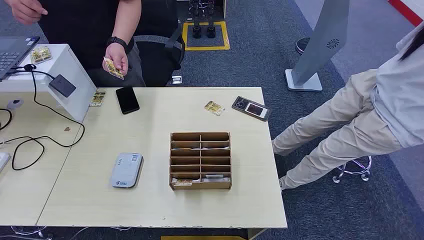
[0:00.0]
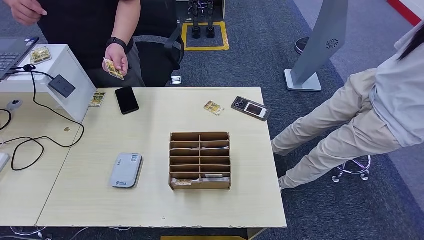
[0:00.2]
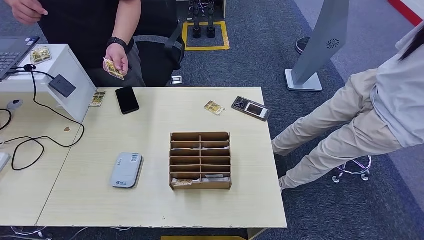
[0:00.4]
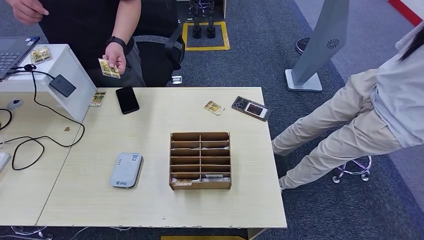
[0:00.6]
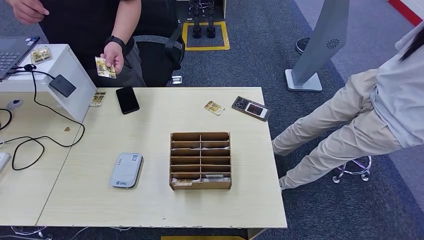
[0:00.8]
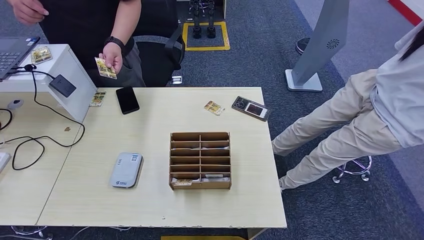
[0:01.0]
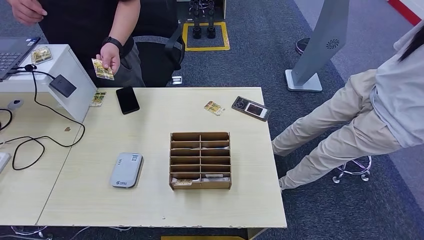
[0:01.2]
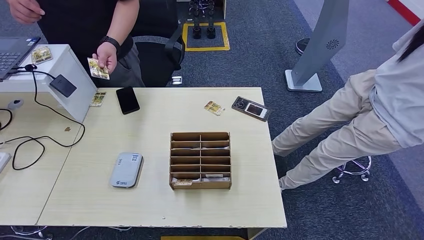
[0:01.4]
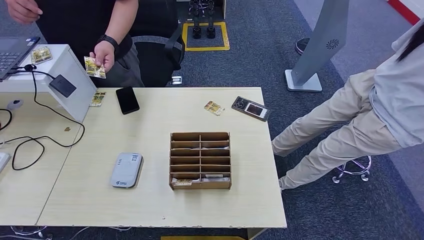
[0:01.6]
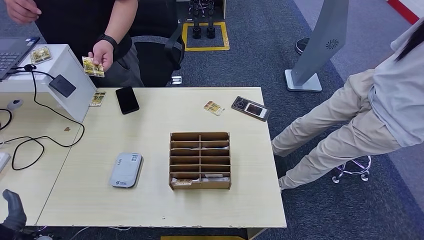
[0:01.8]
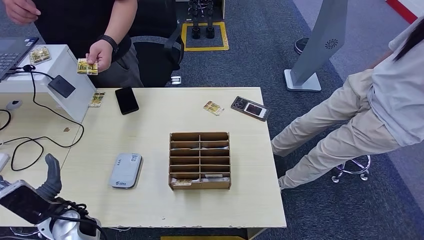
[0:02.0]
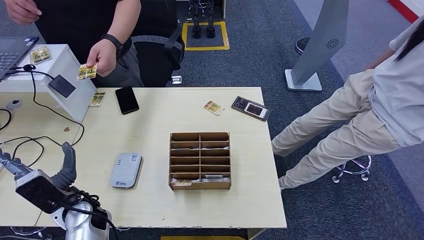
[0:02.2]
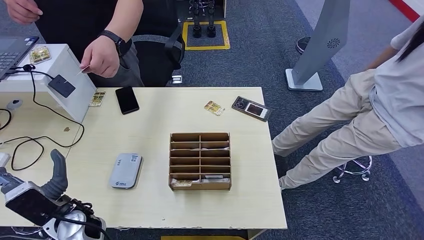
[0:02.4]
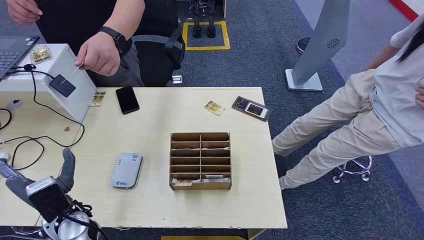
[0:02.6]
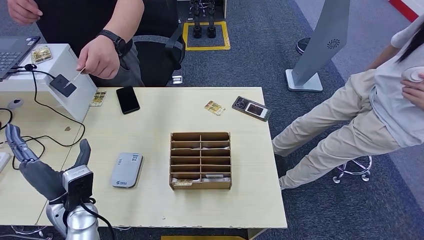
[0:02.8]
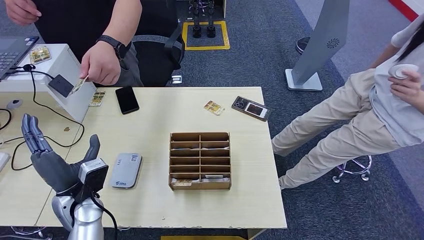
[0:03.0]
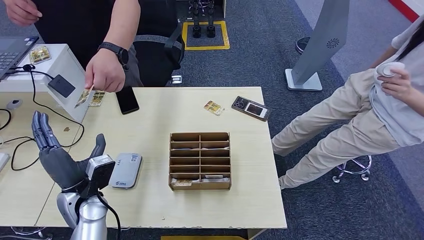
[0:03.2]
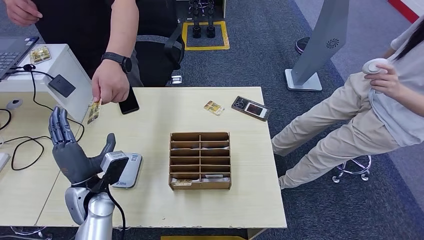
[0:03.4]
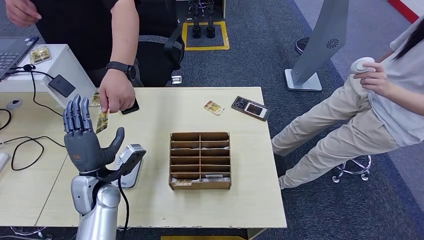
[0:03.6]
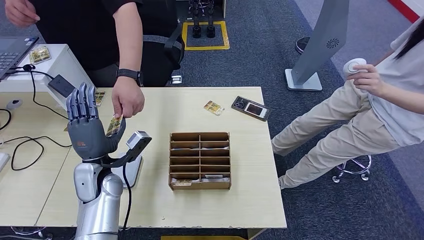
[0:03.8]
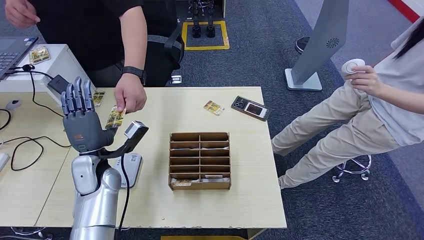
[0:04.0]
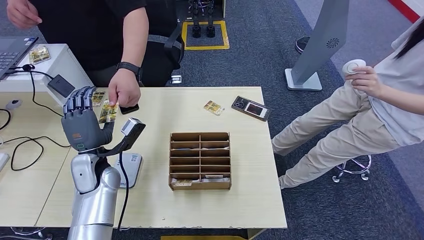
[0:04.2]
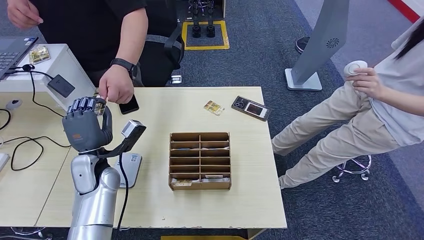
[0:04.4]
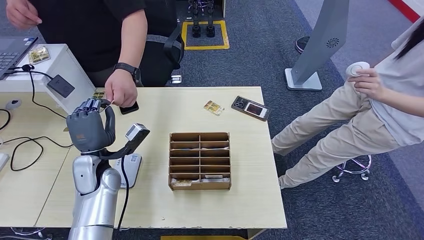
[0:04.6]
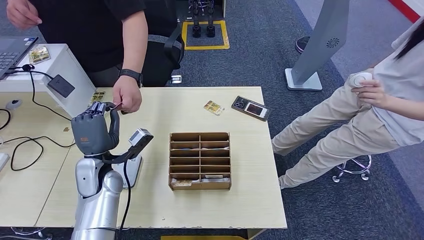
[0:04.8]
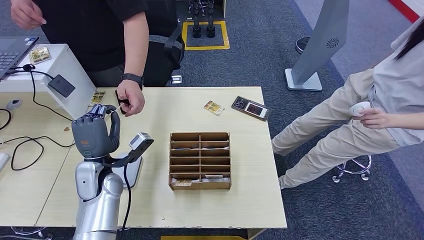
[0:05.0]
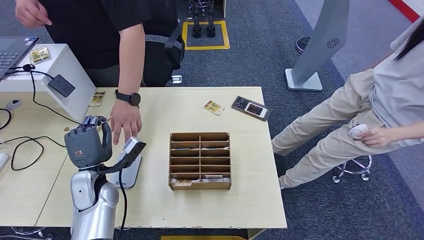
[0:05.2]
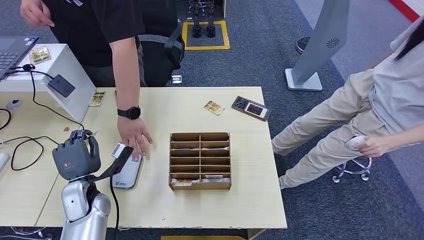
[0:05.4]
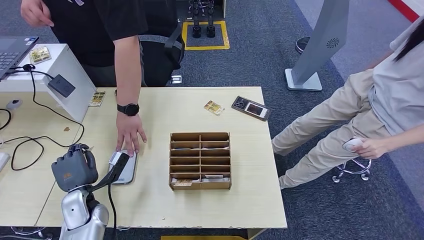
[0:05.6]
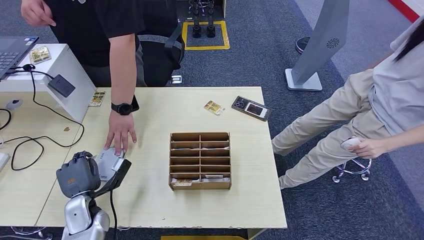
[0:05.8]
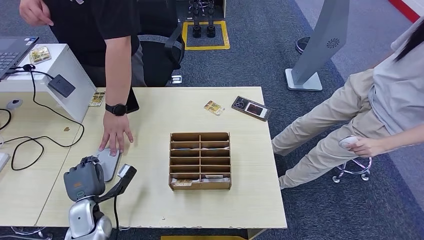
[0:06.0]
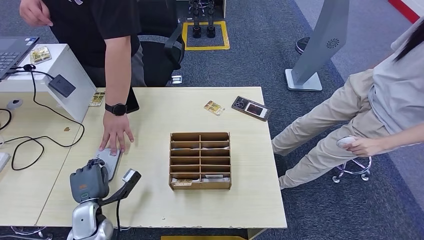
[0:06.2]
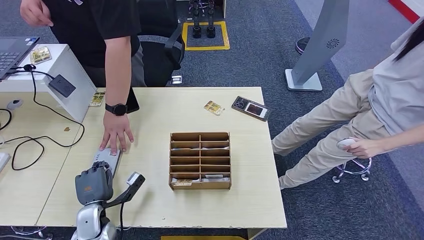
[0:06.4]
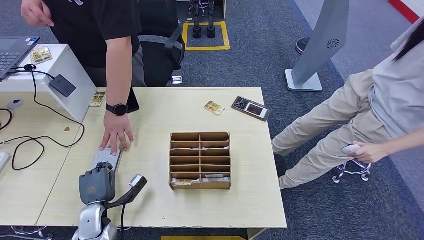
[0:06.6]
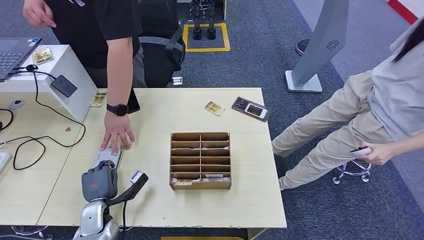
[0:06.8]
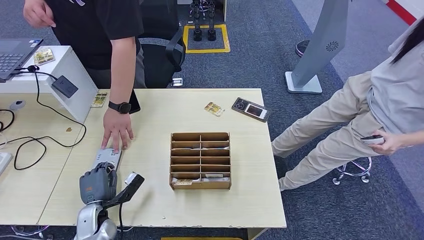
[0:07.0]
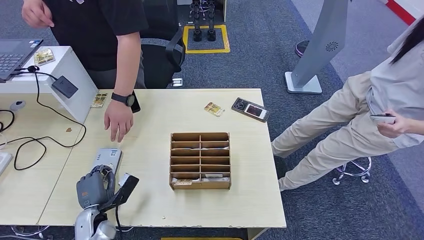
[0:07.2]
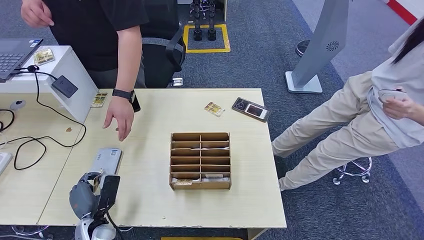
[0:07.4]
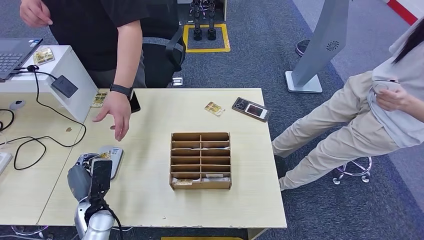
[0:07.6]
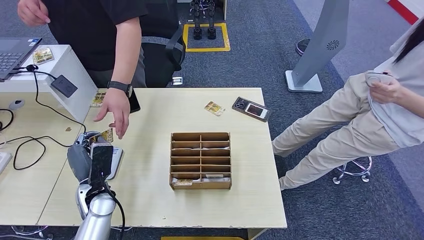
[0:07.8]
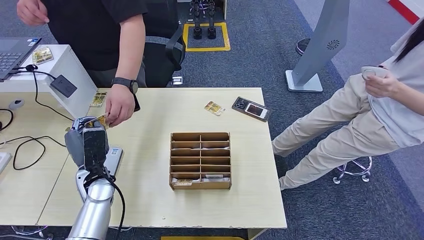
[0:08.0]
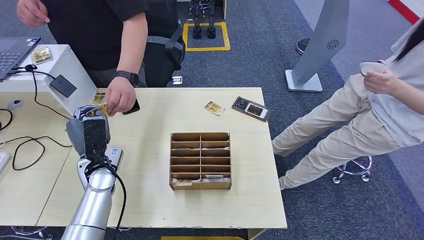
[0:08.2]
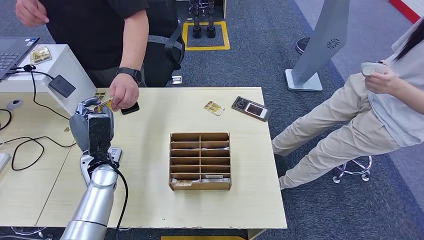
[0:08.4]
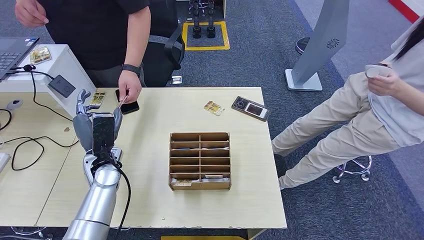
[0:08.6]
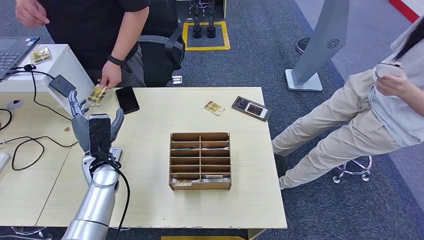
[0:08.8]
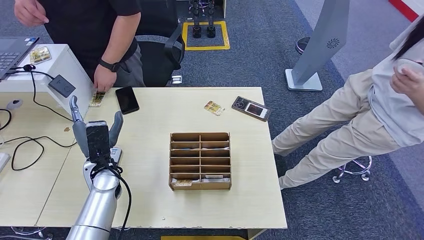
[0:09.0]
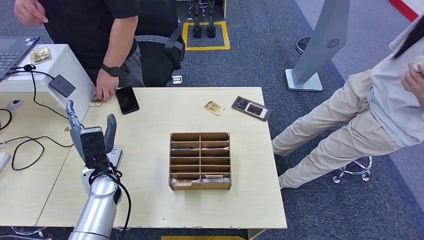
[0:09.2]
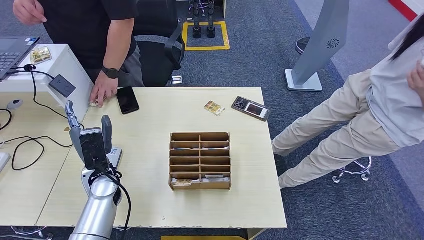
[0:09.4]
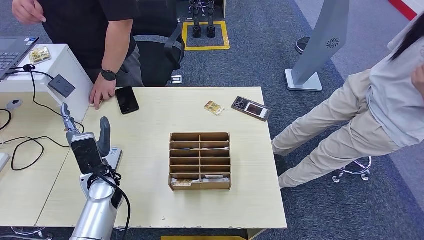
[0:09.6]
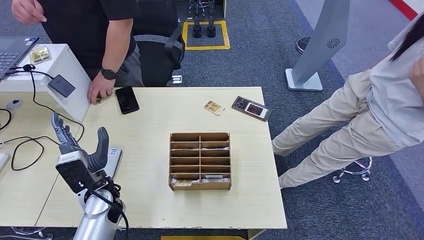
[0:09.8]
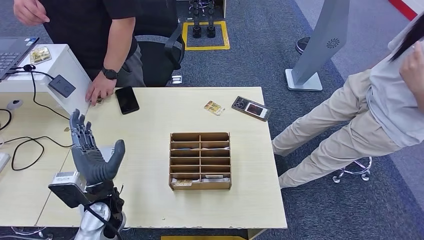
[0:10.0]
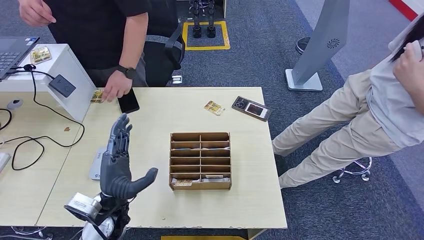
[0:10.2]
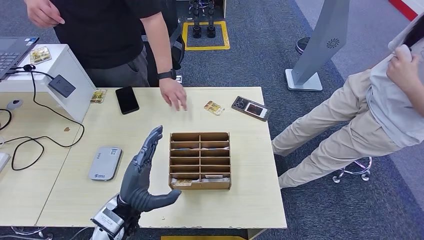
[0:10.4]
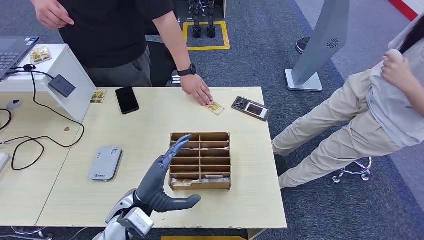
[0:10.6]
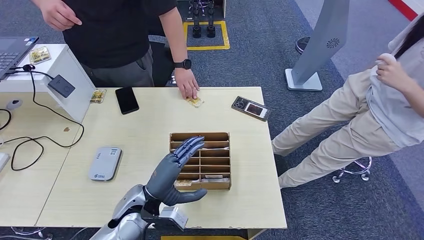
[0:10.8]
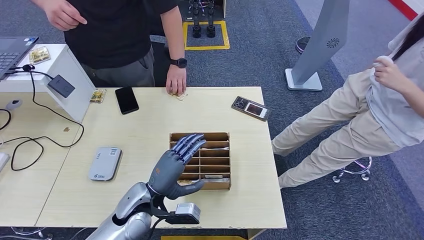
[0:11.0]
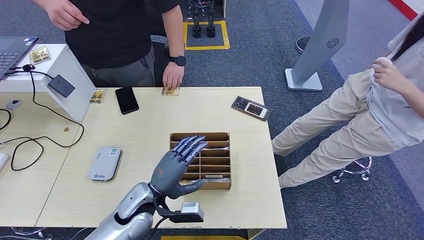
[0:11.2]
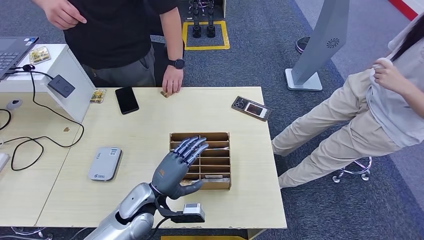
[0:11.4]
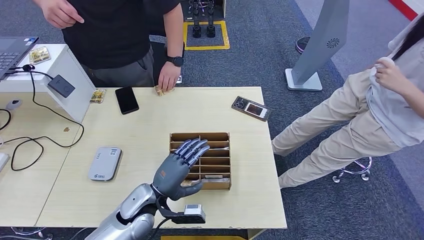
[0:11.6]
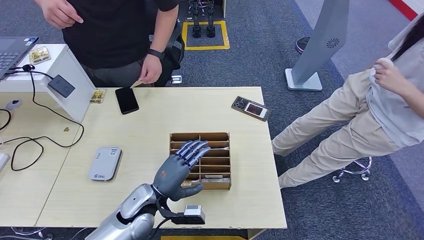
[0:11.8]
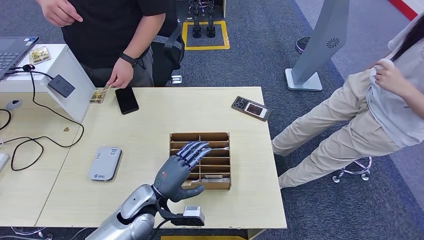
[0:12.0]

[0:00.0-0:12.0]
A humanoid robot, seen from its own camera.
Step, 0:00.0 to 0:05.0: Take the ID card from the person's hand.
Step, 0:05.2 to 0:07.2: Place the ID card on the card reader.
Step, 0:07.4 to 0:08.6: Hand the ID card to the person.
0:01.6 to 0:03.0: The right hand changes place by some 5 cm. The left hand travels to the right, forward and upward by some 20 cm.
0:03.0 to 0:04.4: The left hand shifts some 5 cm forward.
0:04.4 to 0:06.0: The left hand travels downward and backward by about 15 cm.
0:07.6 to 0:09.0: The left hand goes about 10 cm upward and forward.
0:09.0 to 0:10.4: The left hand shifts some 15 cm backward and to the right.
0:10.4 to 0:12.0: The left hand shifts about 5 cm downward.

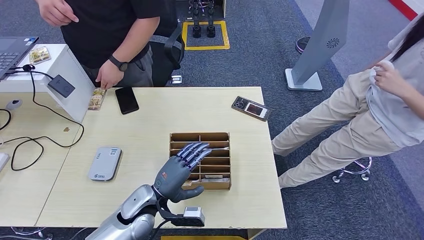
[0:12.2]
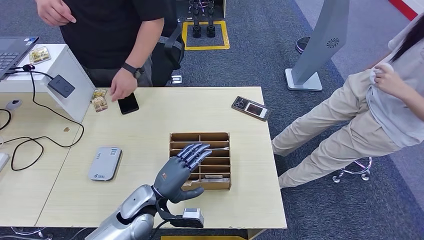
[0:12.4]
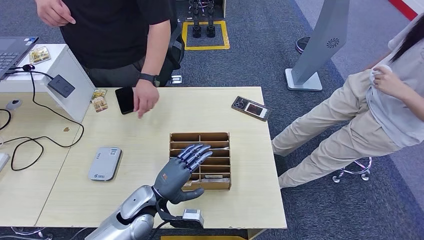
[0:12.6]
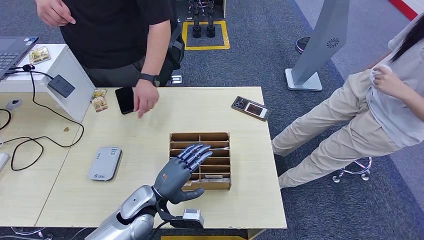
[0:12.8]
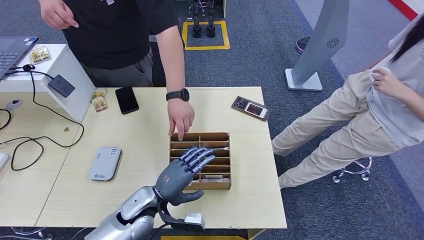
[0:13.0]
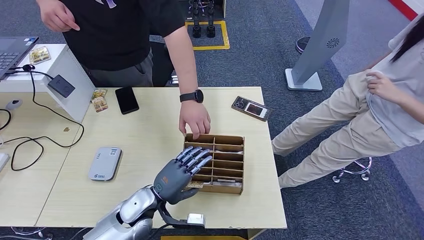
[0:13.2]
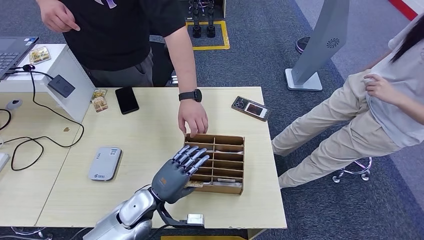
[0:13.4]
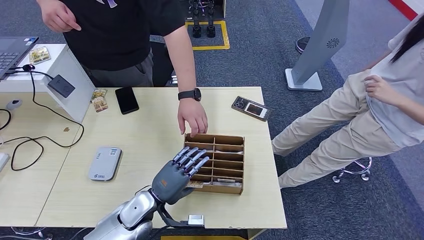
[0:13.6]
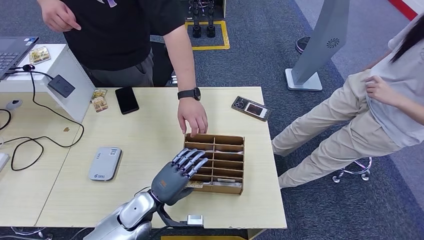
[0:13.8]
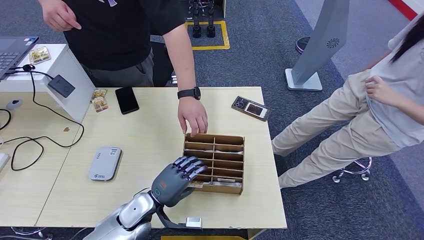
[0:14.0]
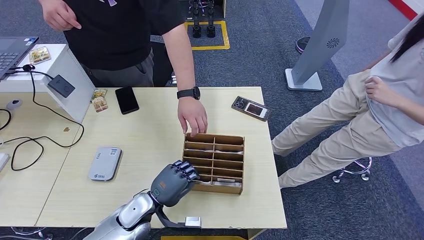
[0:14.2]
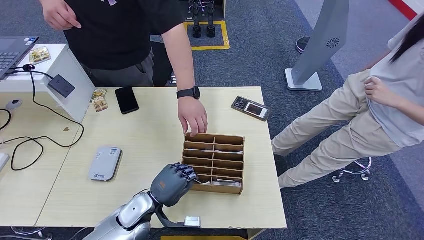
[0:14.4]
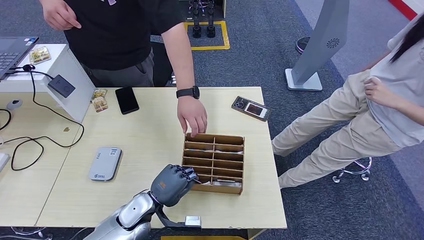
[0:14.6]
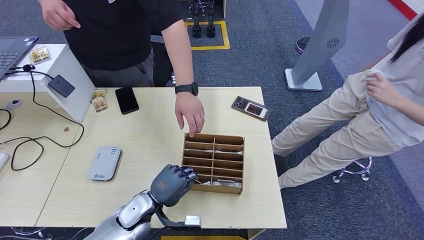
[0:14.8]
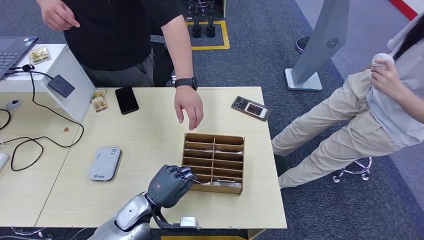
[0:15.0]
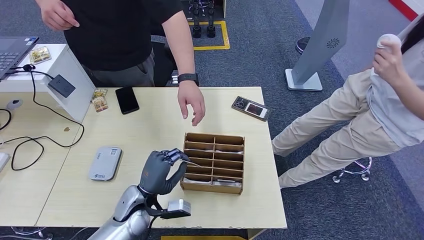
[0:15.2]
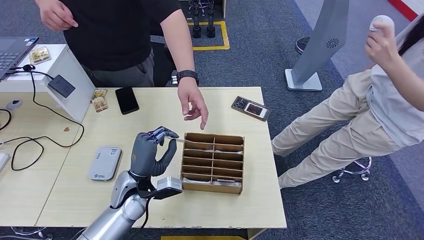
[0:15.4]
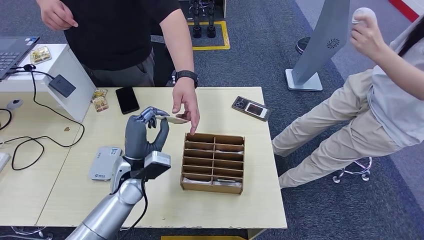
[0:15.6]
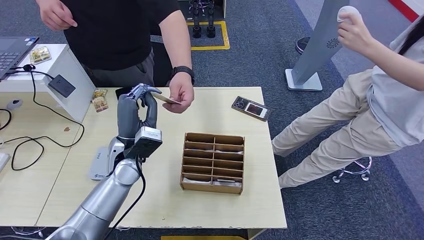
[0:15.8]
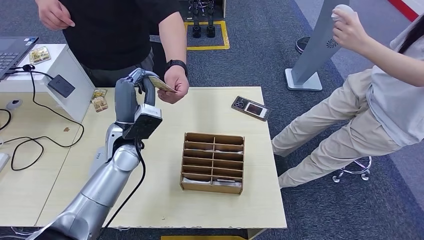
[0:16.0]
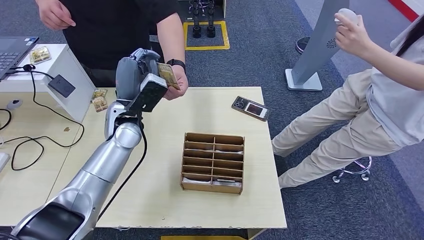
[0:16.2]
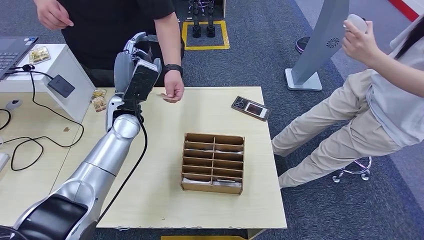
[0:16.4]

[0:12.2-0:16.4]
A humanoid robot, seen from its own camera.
Step, 0:12.2 to 0:15.0: Pick up the room key from the key card box.
Step, 0:15.2 to 0:16.4: Hand the room key to the person.
0:12.2 to 0:13.6: There are only small adjustments of the hands.
0:13.6 to 0:15.0: The hands stay close to where they were, moving slightly.
0:15.0 to 0:16.4: The left hand travels upward and forward by roughly 30 cm.
